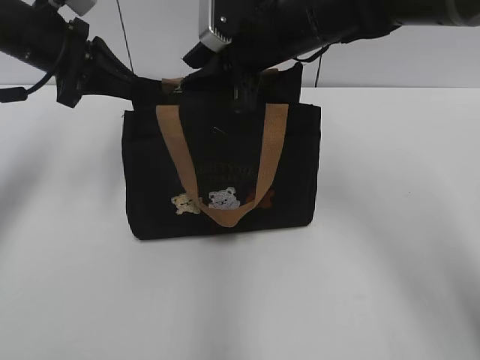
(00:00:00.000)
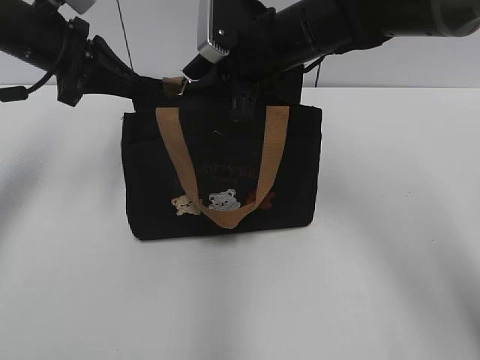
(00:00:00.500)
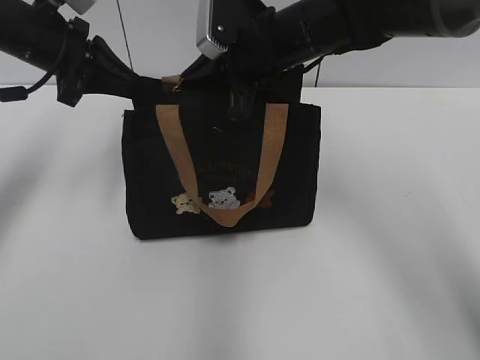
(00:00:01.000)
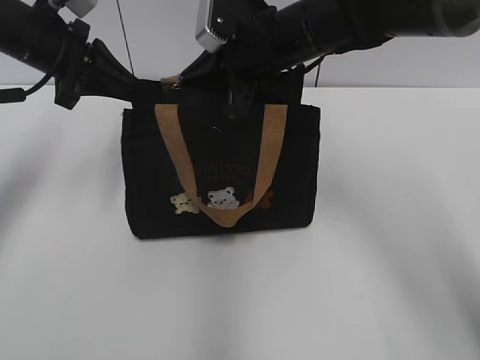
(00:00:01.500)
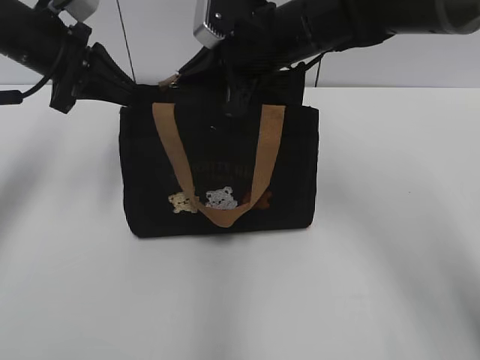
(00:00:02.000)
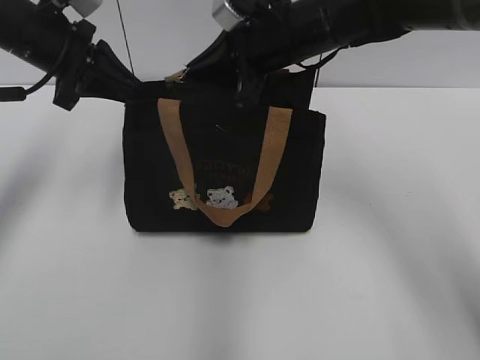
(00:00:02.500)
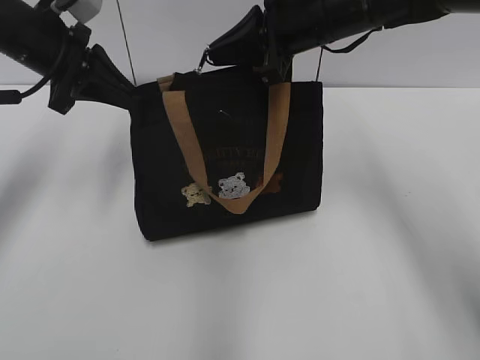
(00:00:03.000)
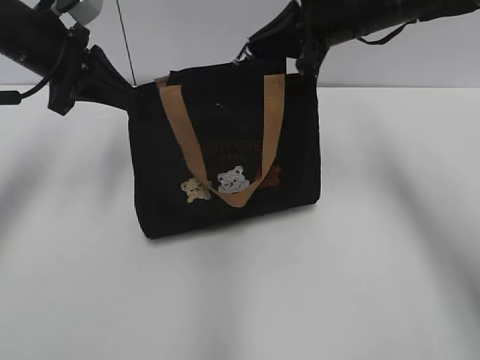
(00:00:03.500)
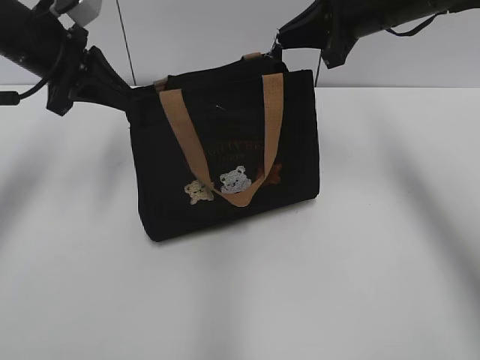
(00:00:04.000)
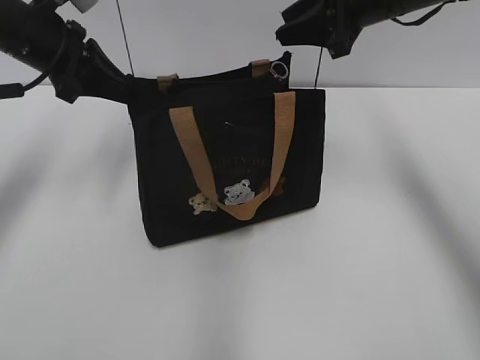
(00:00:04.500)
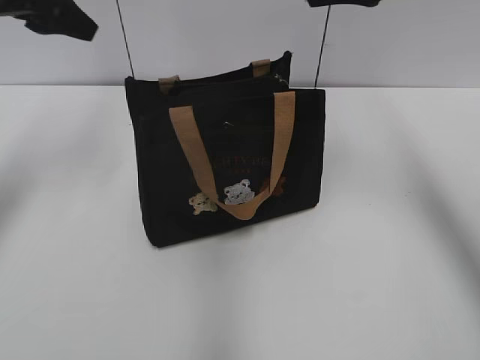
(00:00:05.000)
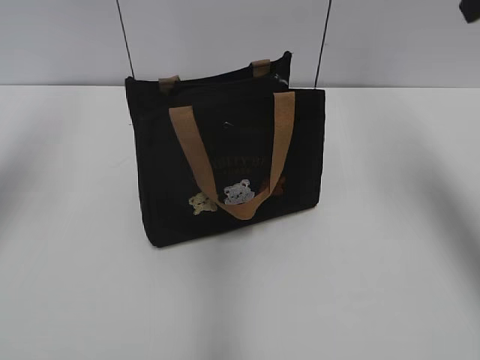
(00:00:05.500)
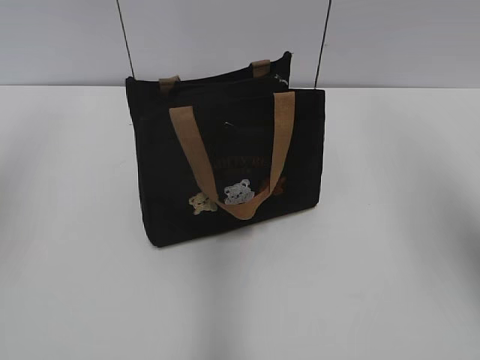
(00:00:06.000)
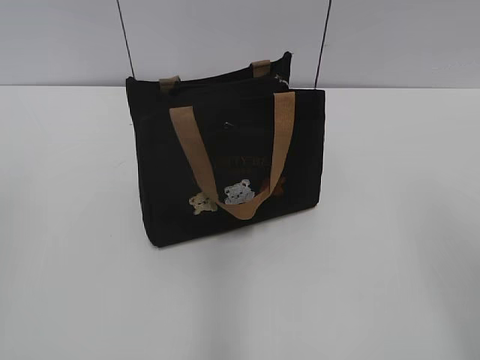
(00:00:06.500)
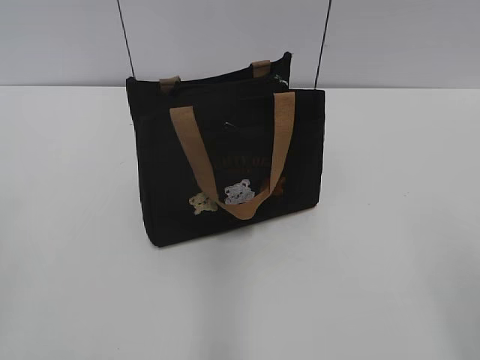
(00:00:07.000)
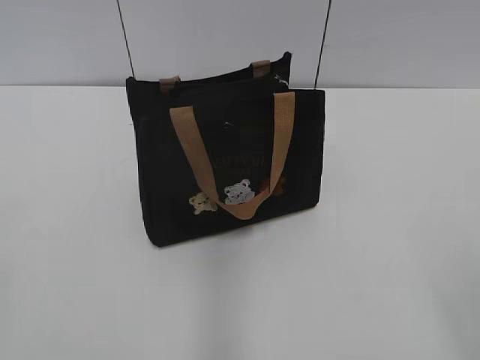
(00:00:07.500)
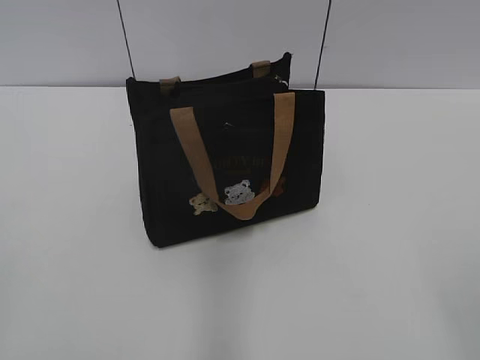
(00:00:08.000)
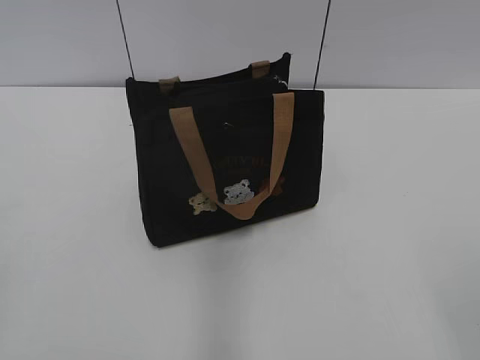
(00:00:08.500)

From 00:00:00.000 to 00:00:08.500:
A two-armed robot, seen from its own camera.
Step, from 00:00:00.000 to 00:00:04.000: Pull open the zipper with your right hand.
From 00:00:00.000 to 00:00:02.000: The right gripper closes up.
From 00:00:02.000 to 00:00:04.000: The right gripper is displaced to the right by some 10 cm.
From 00:00:04.000 to 00:00:06.500: Both grippers travel together backward, some 35 cm. The right gripper opens up; the left gripper opens up.

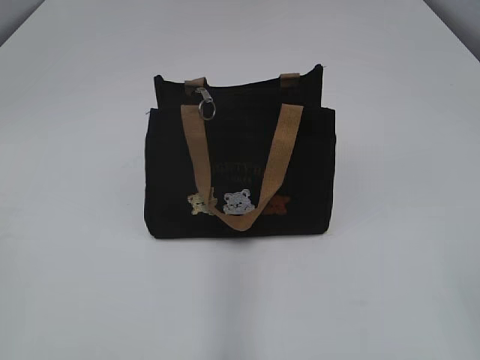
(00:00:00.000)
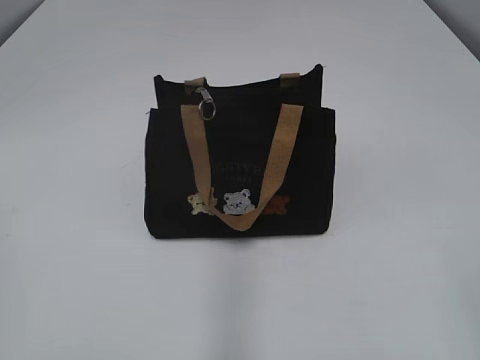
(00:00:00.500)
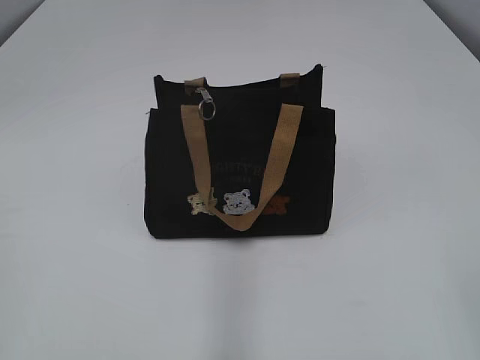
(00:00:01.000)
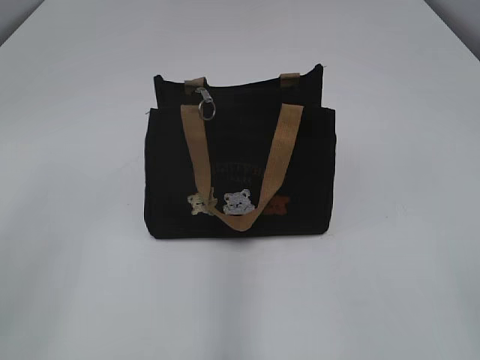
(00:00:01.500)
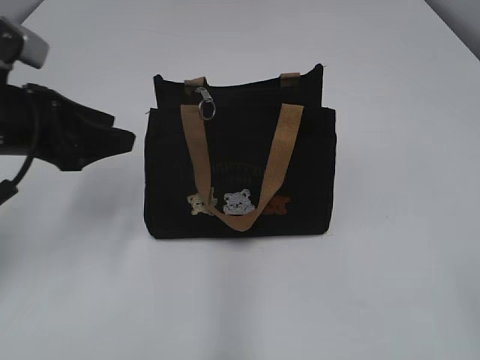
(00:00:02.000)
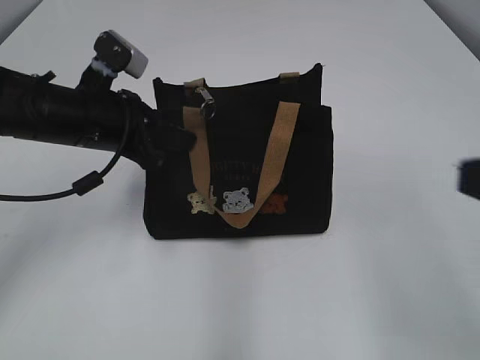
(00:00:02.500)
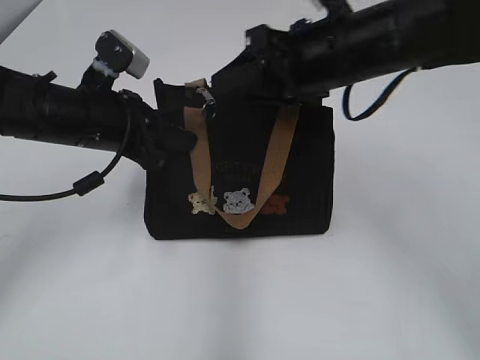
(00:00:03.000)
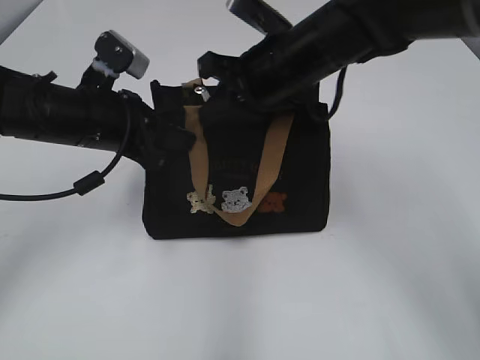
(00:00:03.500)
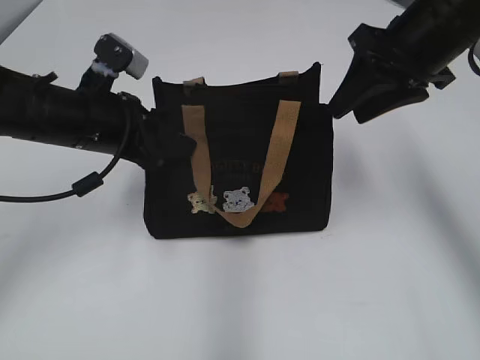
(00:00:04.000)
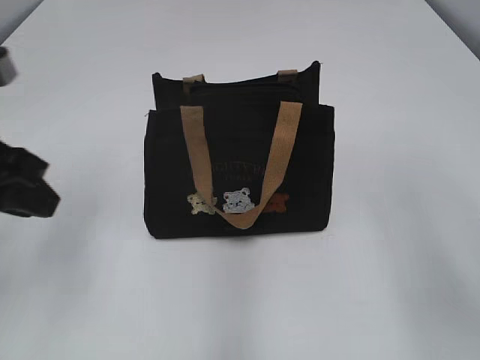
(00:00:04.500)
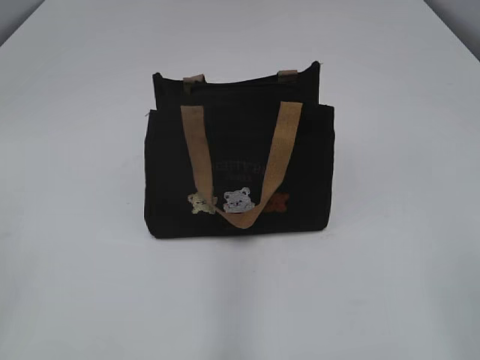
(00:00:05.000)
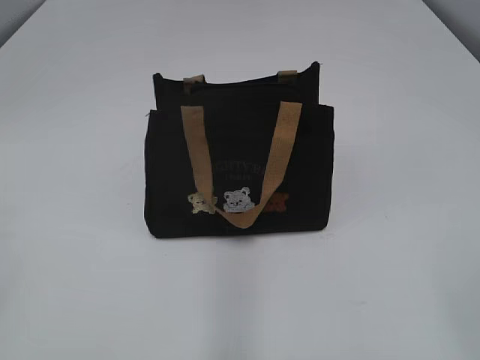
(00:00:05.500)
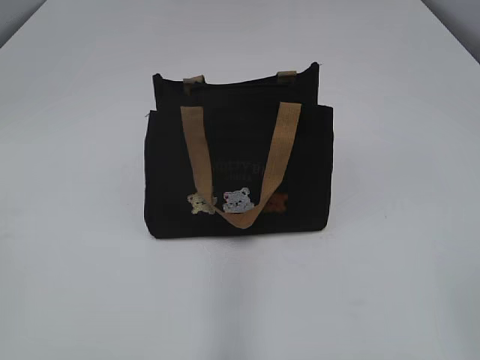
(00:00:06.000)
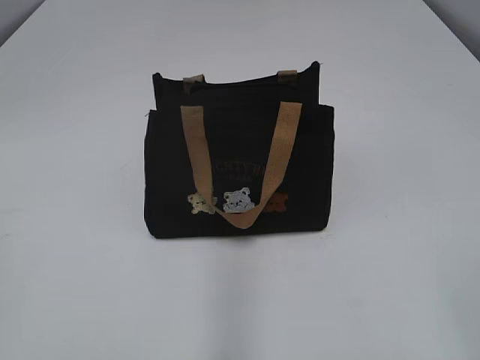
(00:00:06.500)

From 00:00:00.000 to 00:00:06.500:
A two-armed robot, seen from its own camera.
Step, from 00:00:00.000 to 00:00:03.500: Pull open the zipper with your right hand.
From 00:00:02.000 to 00:00:04.500: The left gripper travels backward by approximately 5 cm, and closes its fingers; the right gripper moves forward, roughly 20 cm, and closes, then reopens.
From 00:00:04.500 to 00:00:06.500: The grippers both shift backward by about 20 cm.
